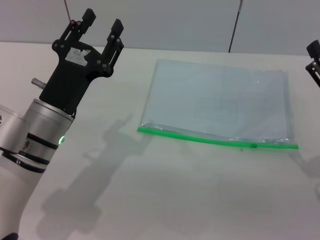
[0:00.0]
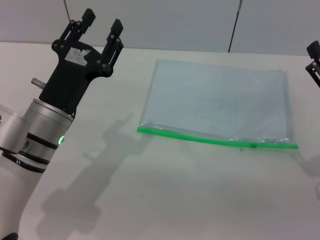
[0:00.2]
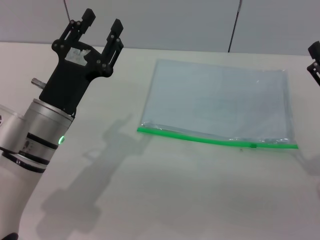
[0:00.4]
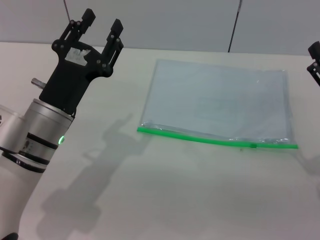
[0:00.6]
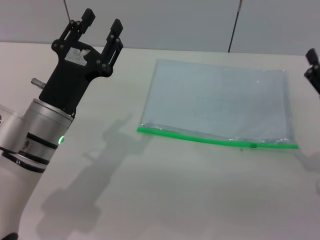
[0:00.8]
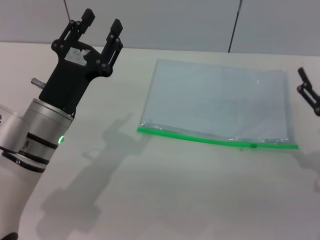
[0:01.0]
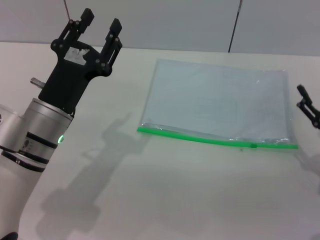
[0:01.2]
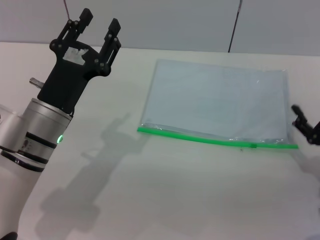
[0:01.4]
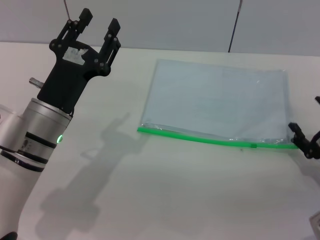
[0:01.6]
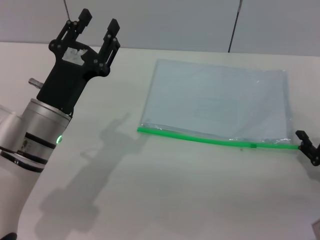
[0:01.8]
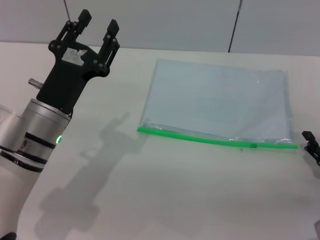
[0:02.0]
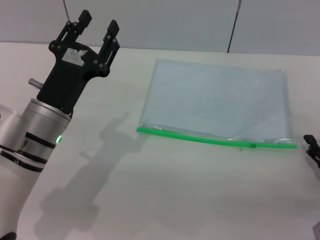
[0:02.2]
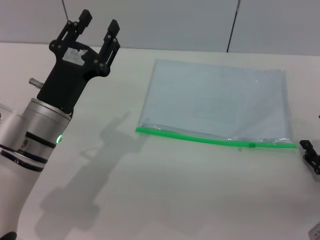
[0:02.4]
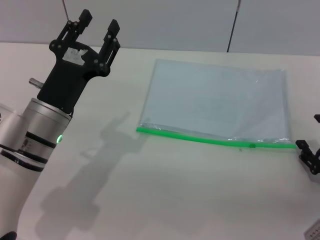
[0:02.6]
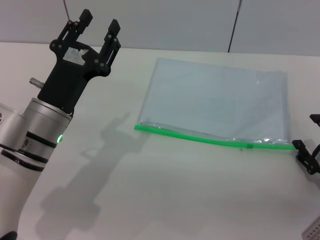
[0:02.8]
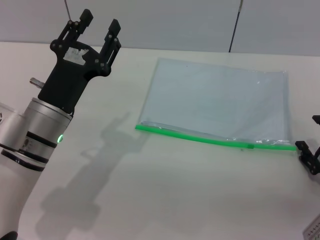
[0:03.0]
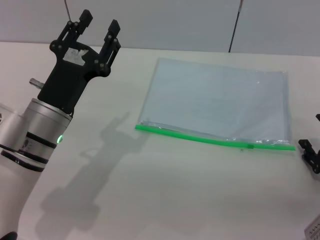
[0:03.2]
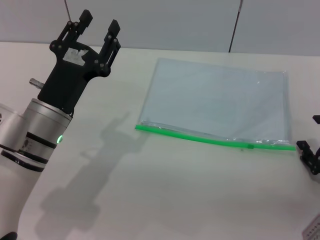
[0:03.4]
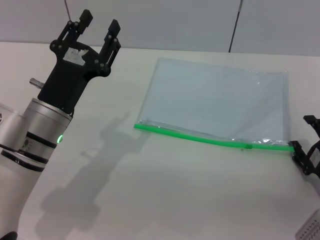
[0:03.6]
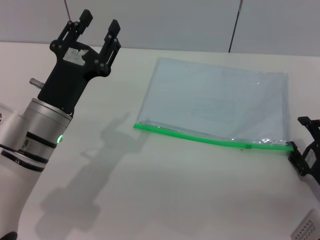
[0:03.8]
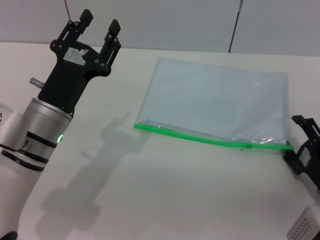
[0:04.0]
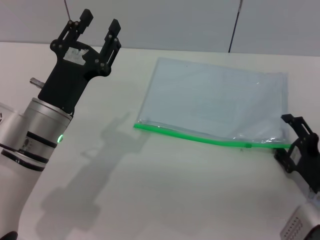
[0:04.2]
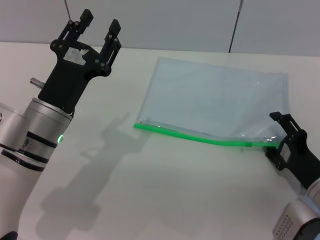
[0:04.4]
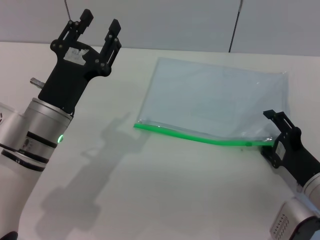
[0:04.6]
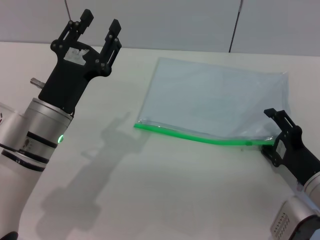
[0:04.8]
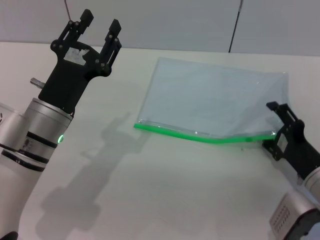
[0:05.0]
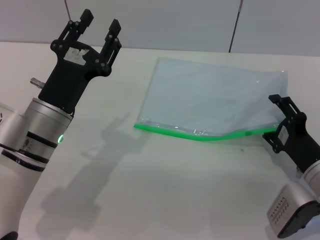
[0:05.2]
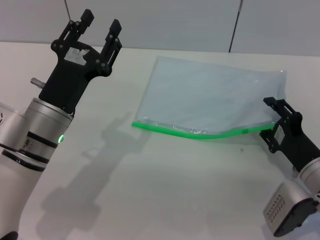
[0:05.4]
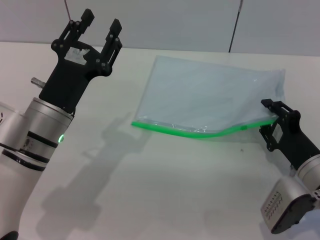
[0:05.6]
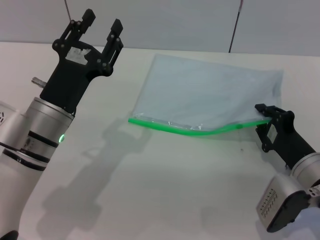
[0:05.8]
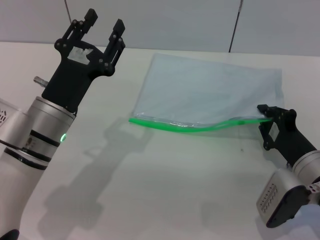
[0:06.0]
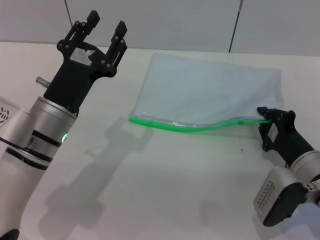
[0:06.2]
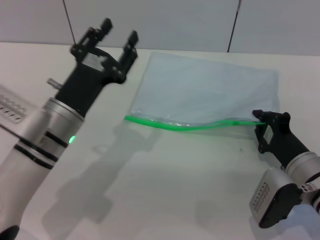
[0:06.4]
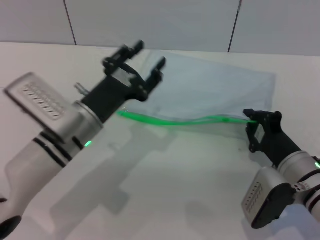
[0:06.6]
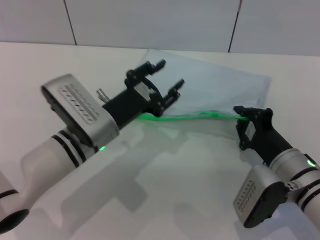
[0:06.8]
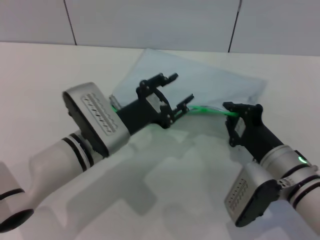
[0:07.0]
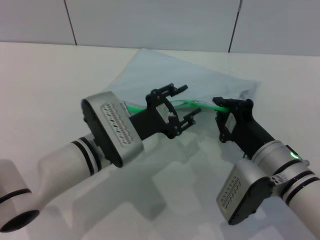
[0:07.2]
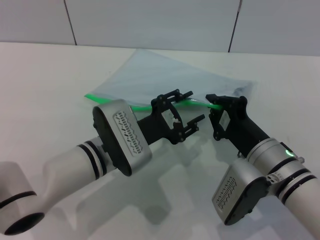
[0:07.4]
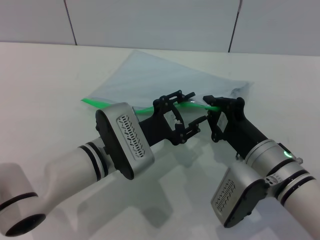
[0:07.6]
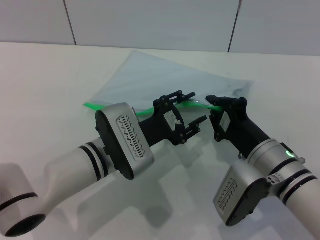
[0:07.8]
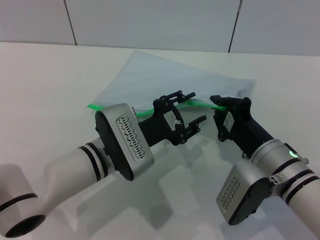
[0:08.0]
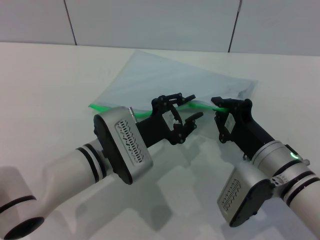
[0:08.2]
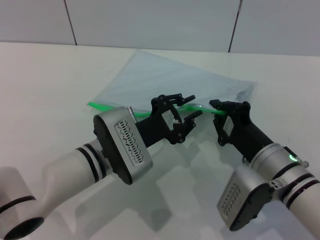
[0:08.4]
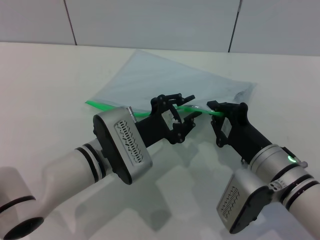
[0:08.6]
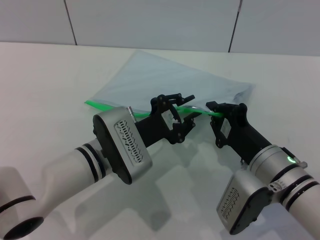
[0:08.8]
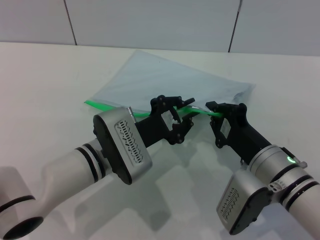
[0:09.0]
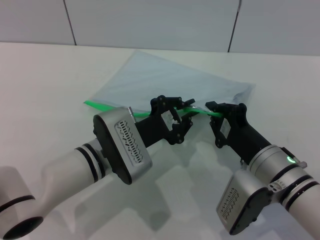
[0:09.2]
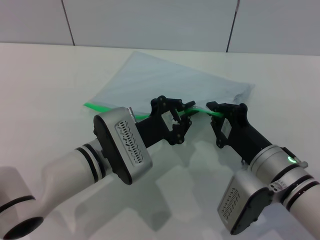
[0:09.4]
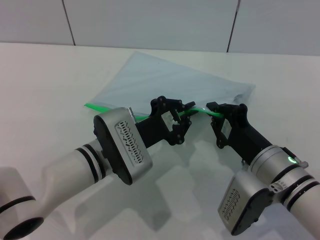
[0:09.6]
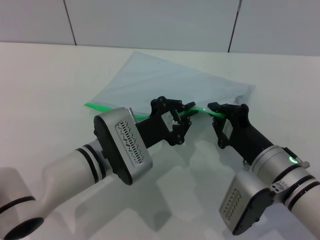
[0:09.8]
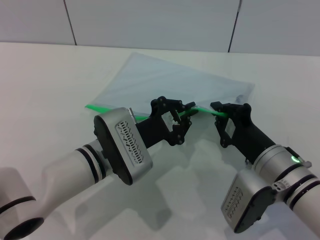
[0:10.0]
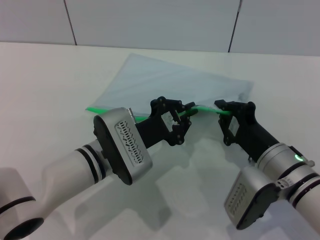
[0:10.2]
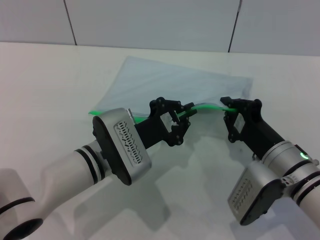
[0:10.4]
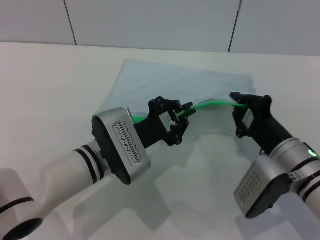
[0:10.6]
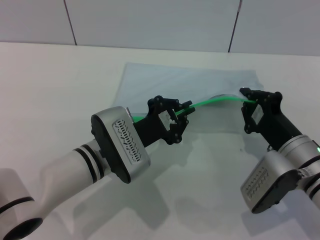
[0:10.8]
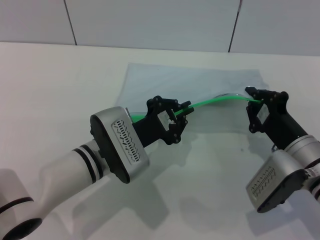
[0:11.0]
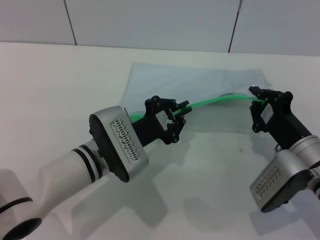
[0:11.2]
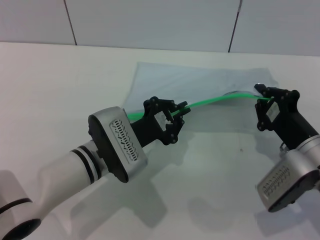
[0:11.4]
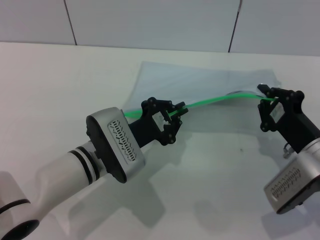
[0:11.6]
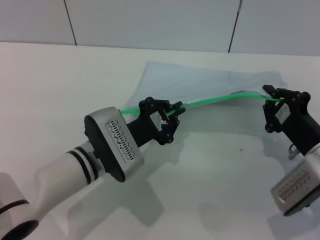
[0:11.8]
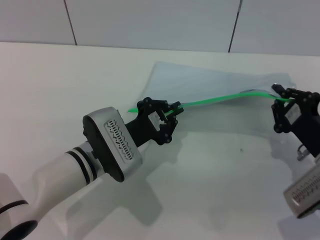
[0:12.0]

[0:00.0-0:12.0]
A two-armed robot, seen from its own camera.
Step, 0:00.0 to 0:06.8: Pick up the transparent plastic bag with the right gripper.
0:00.0 to 0:01.6: The right gripper heads downward, covering roughly 5 cm.
0:01.6 to 0:03.0: The grippers move only a little.
0:03.0 to 0:04.4: The right gripper moves approximately 5 cm.
0:04.4 to 0:06.0: The right gripper closes its fingers.
0:06.0 to 0:07.6: The left gripper moves to the right, about 5 cm; the right gripper goes about 10 cm to the left.
0:07.6 to 0:09.0: The left gripper closes its fingers.
0:09.0 to 0:10.4: The left gripper closes.
0:10.4 to 0:12.0: The right gripper goes approximately 10 cm to the right.

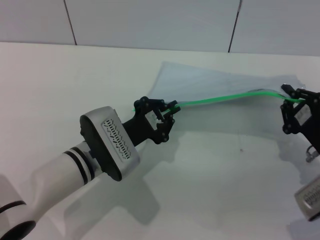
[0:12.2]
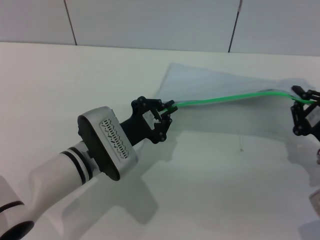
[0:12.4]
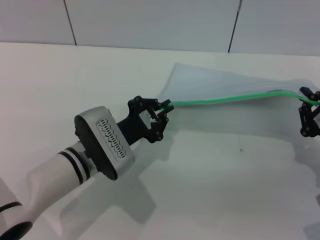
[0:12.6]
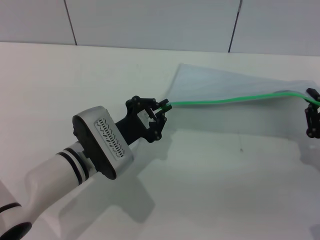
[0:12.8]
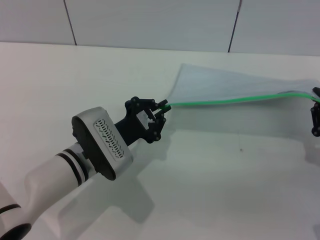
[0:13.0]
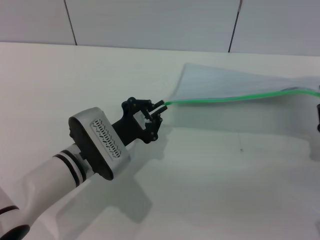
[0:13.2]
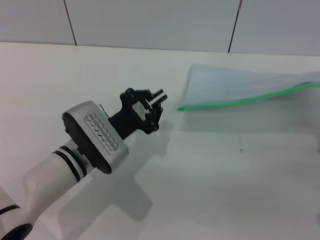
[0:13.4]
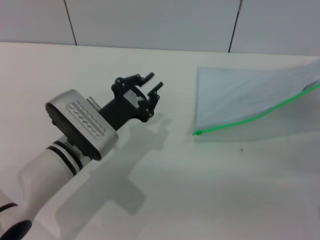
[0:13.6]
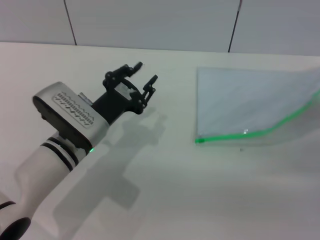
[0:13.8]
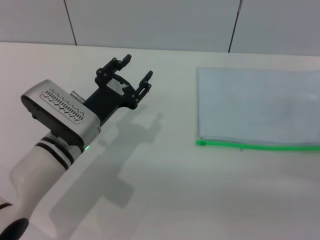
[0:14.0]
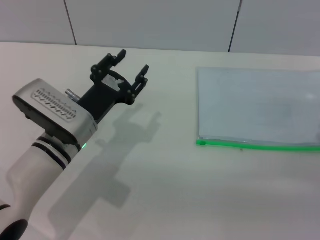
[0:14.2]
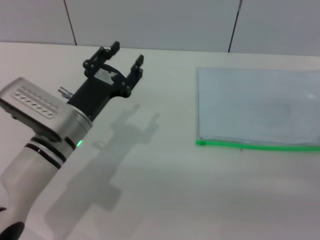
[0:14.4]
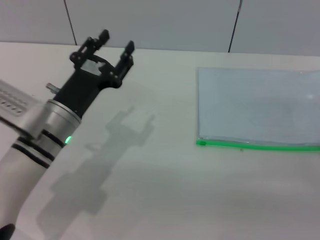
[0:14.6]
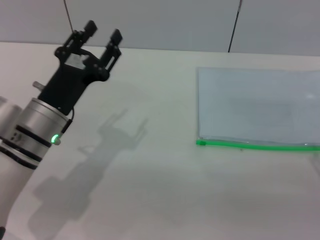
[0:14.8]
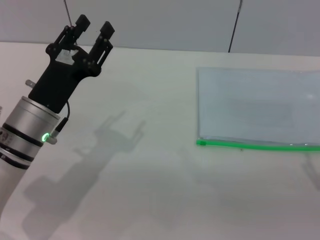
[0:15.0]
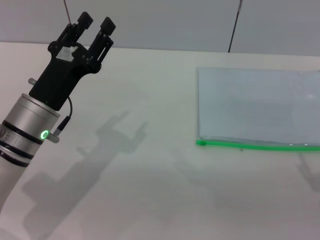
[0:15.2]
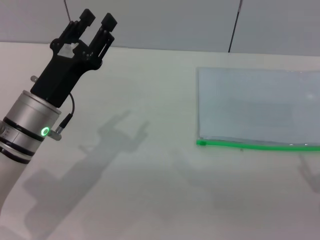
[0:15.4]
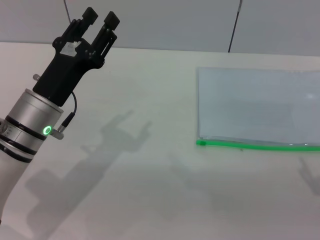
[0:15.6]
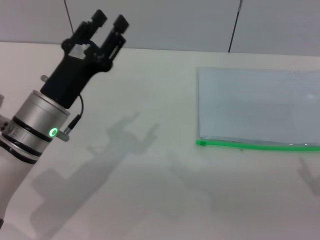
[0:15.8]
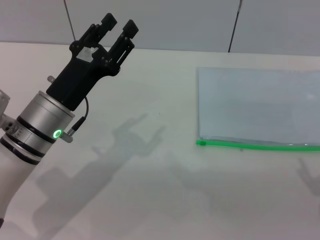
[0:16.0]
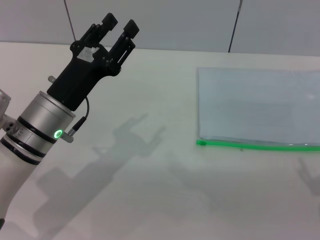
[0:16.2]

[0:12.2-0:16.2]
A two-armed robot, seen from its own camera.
Step, 0:13.6 to 0:14.0: Place the transparent plastic bag.
0:12.2 to 0:13.6: The right gripper shifts by roughly 5 cm.
0:13.6 to 0:14.8: The right gripper moves approximately 5 cm, and opens up. Meanwhile the left gripper changes place by some 5 cm, and opens up.
0:14.8 to 0:16.2: The grippers stay close to where they were, moving slightly.
